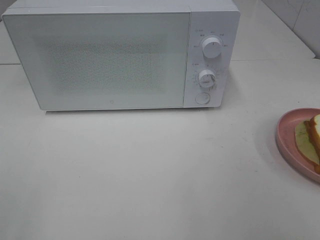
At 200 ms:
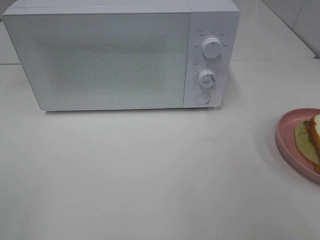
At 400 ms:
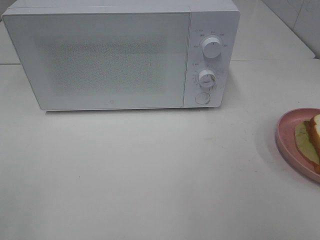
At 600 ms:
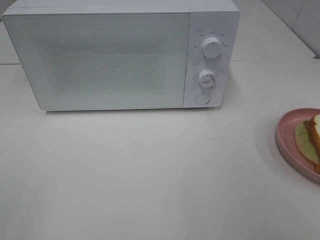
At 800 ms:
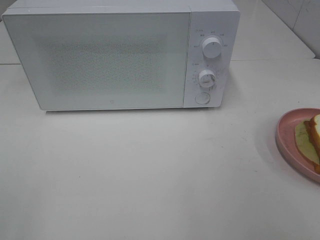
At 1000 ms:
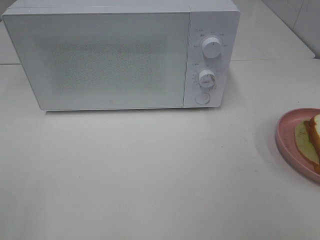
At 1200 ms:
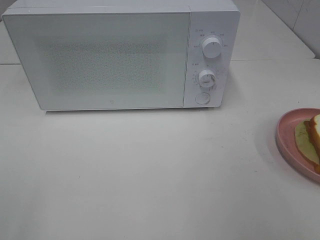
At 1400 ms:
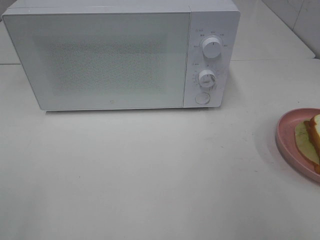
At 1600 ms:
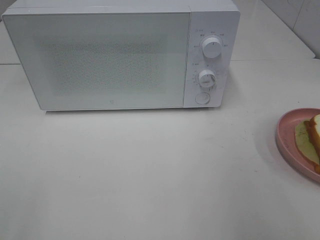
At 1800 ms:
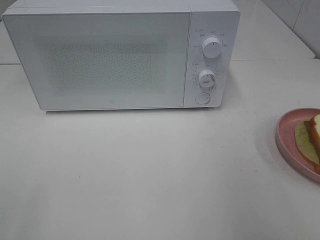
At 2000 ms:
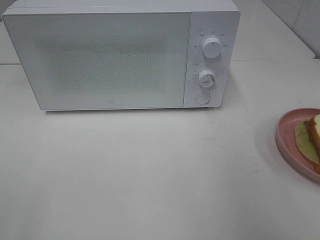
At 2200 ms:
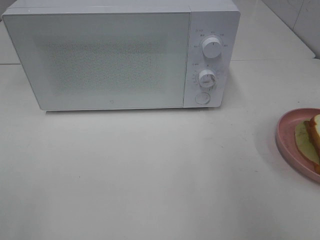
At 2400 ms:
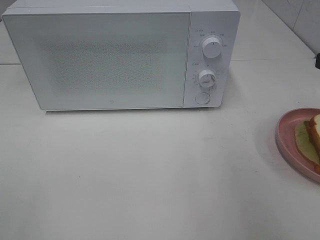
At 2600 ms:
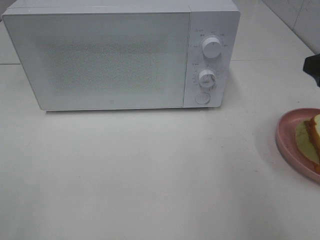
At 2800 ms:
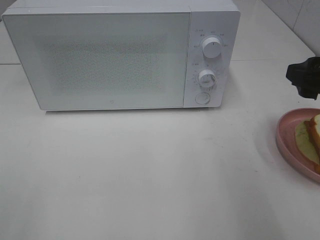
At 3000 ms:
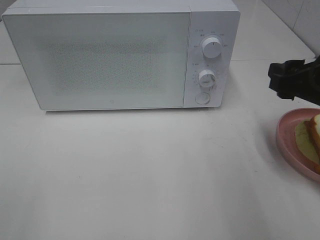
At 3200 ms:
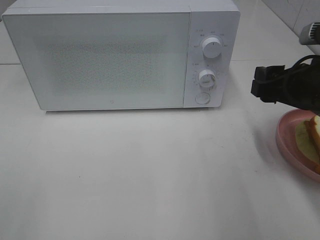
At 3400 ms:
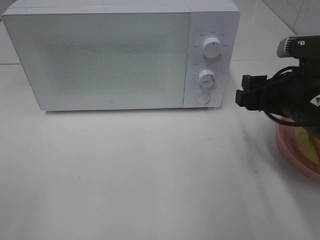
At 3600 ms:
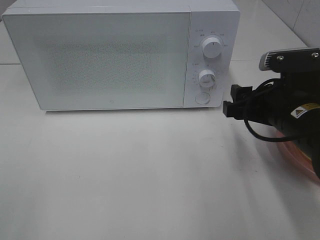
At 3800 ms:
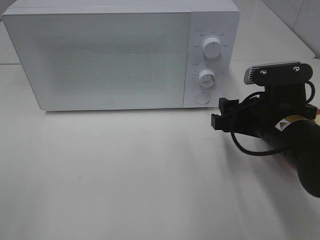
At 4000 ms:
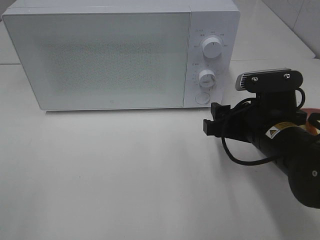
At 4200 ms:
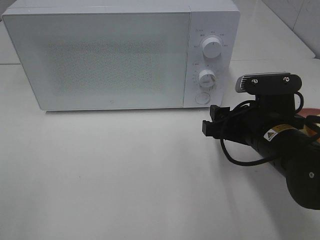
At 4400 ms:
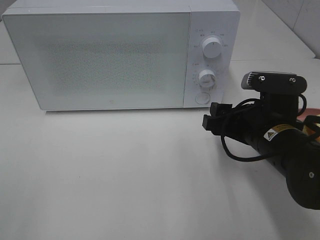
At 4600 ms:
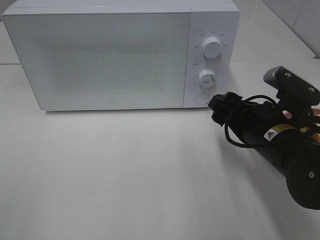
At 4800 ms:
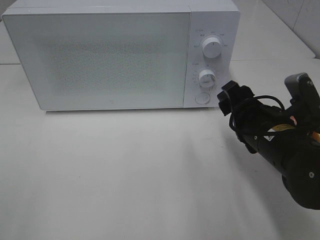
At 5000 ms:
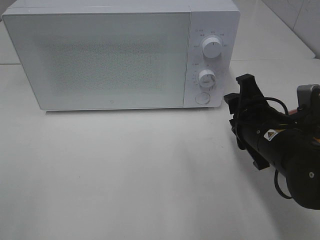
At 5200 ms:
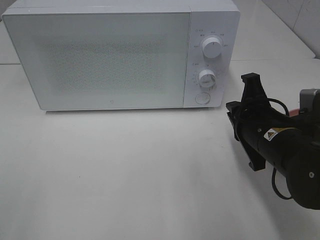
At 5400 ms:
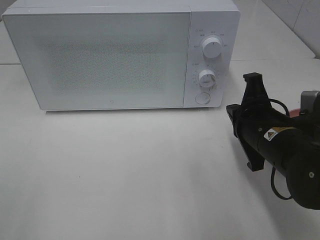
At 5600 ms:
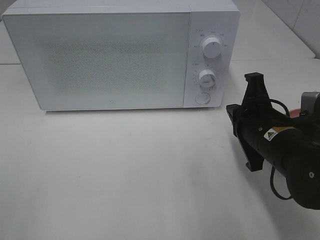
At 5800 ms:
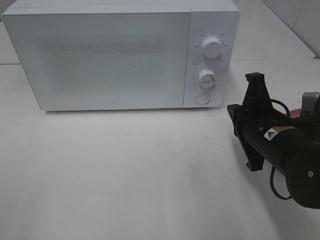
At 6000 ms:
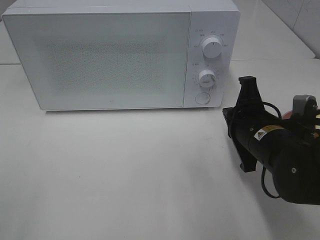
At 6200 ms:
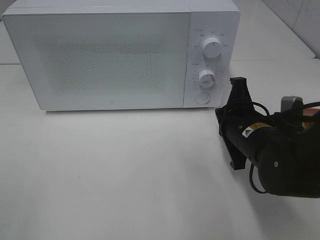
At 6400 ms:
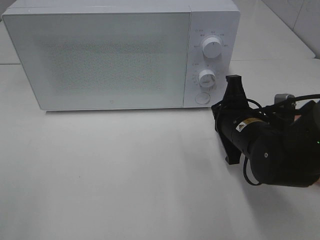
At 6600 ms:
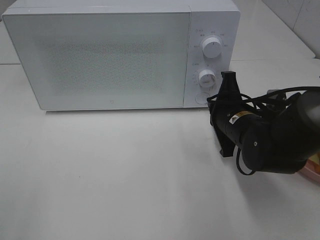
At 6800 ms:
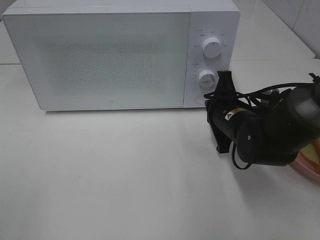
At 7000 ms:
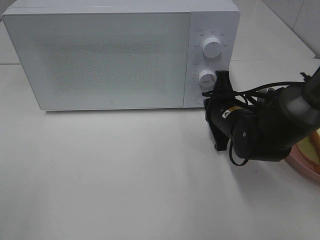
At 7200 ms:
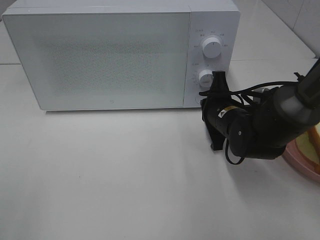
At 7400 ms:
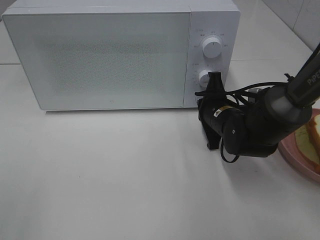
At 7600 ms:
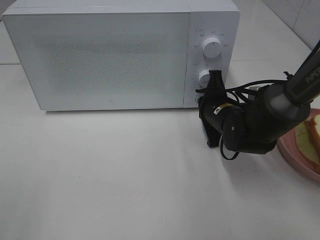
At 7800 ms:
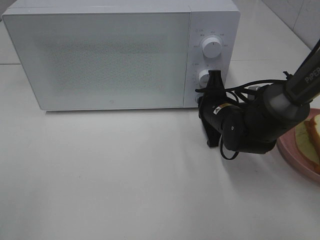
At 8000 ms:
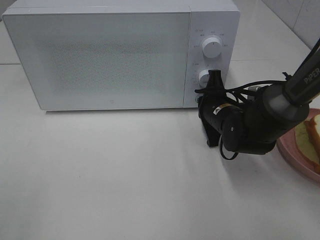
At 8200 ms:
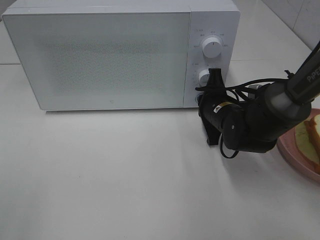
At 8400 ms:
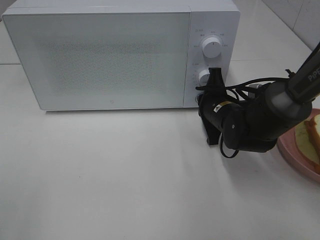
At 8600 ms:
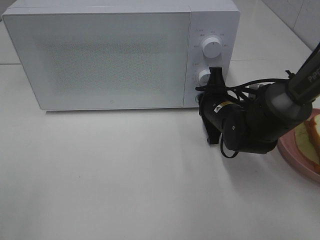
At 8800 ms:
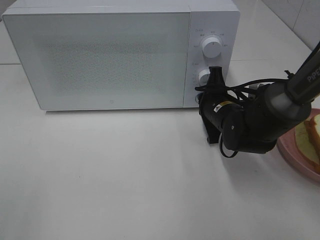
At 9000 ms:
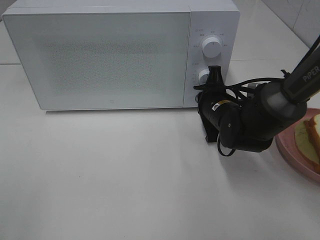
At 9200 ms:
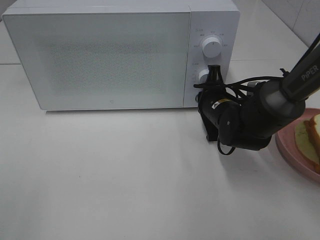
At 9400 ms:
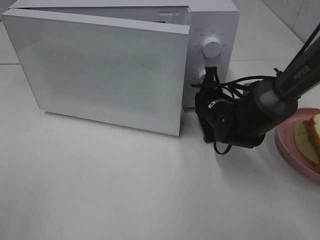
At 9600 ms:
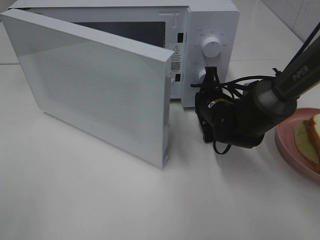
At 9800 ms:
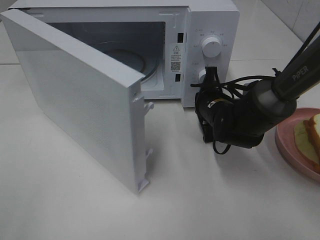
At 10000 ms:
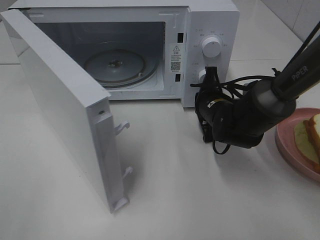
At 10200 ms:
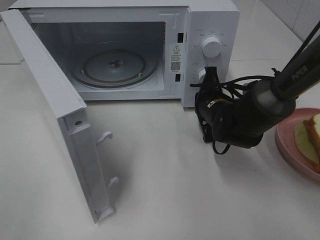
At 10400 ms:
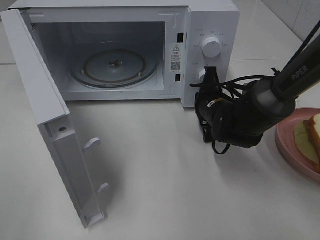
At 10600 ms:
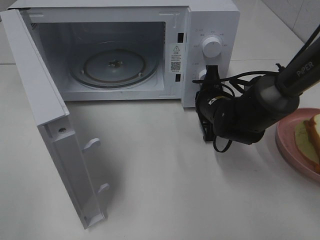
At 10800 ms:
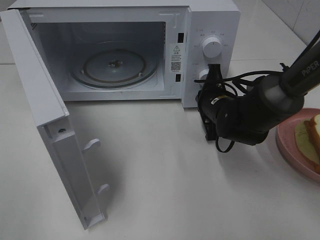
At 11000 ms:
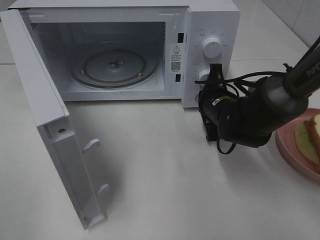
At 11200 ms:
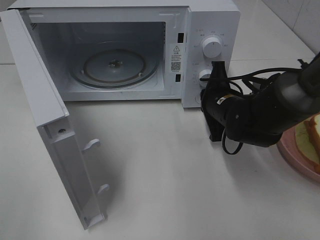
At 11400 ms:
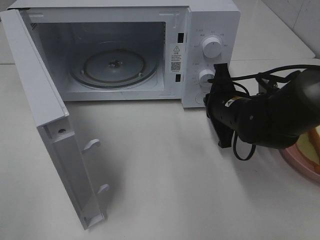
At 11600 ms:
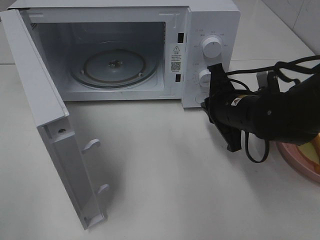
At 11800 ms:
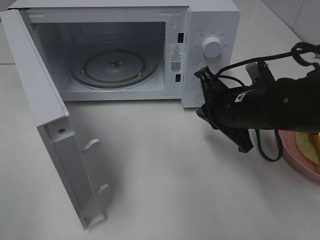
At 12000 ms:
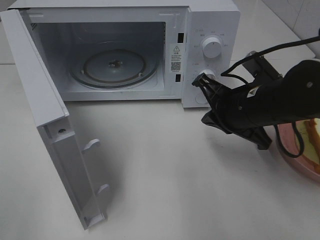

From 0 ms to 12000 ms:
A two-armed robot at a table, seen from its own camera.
Task of the whole recording: Heat Sandwich.
Step, from 0 ms to 11200 ms: Right hand: press the switch.
From 1600 ms to 3000 ms: The right gripper is displaced forward and downward by roughly 15 cm.
From 3000 ms to 4400 ms: The right gripper shifts approximately 10 cm downward and to the left.
From 4400 ms to 6000 ms: The right gripper closes up.
From 6000 ms to 7600 ms: The right gripper goes some 10 cm forward.
From 7600 ms to 9000 ms: The two grippers keep their place.
From 10400 ms to 12000 ms: The right gripper moves backward and upward, roughly 10 cm.

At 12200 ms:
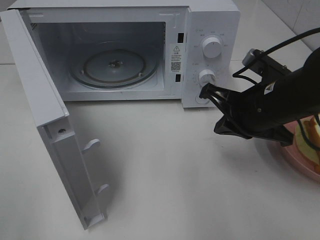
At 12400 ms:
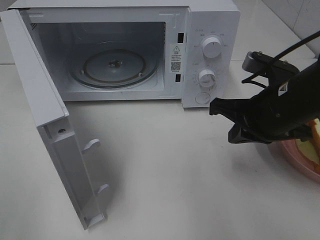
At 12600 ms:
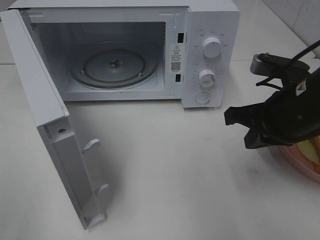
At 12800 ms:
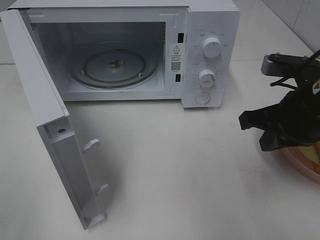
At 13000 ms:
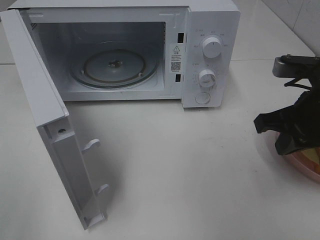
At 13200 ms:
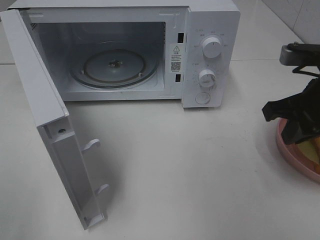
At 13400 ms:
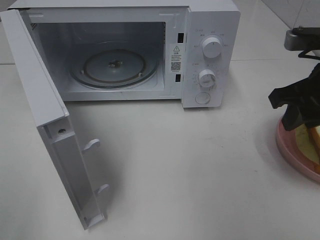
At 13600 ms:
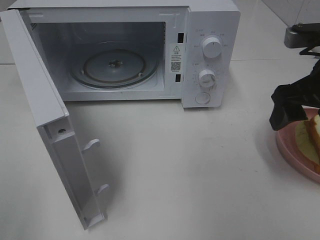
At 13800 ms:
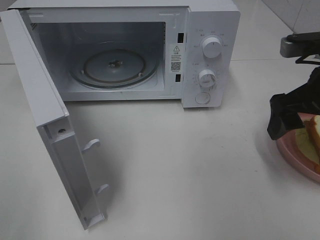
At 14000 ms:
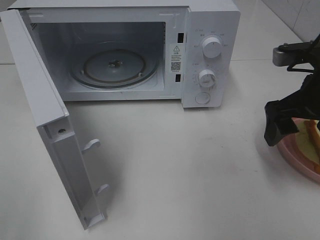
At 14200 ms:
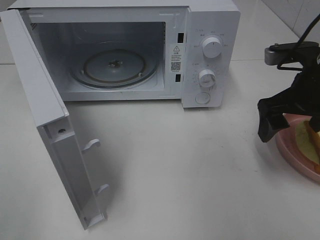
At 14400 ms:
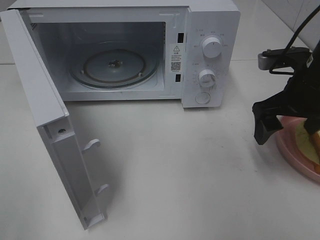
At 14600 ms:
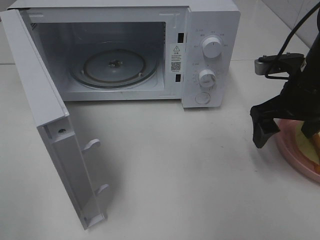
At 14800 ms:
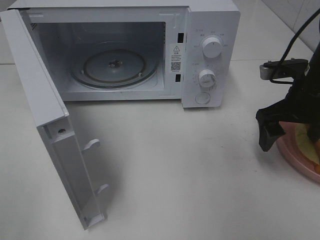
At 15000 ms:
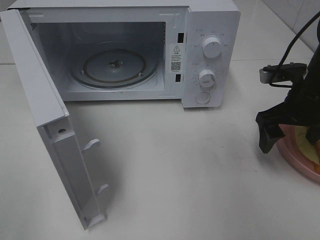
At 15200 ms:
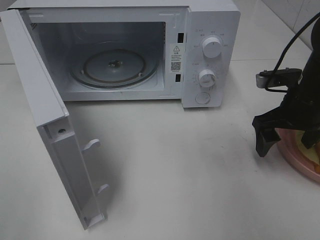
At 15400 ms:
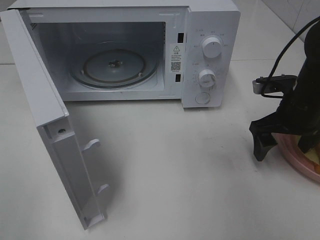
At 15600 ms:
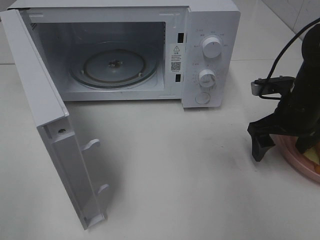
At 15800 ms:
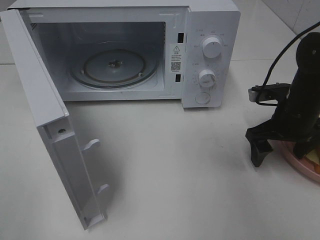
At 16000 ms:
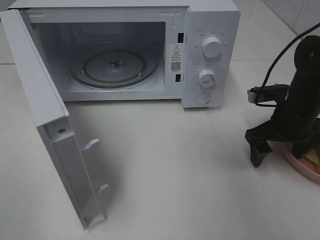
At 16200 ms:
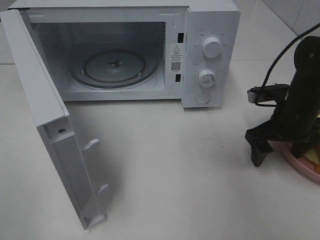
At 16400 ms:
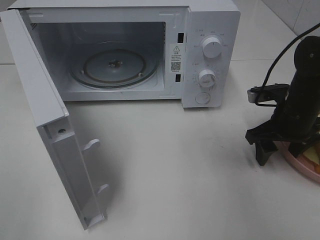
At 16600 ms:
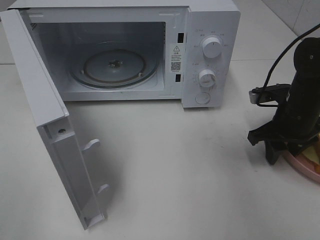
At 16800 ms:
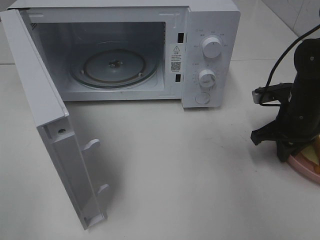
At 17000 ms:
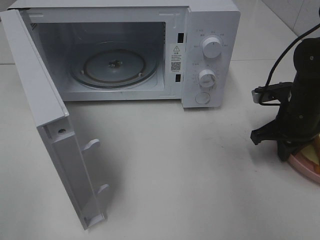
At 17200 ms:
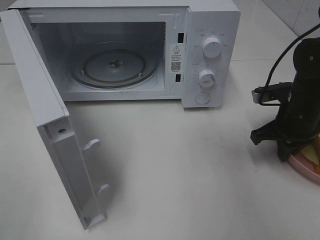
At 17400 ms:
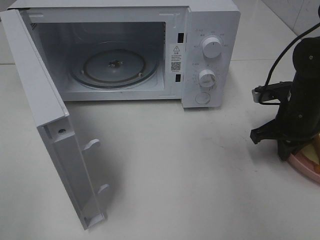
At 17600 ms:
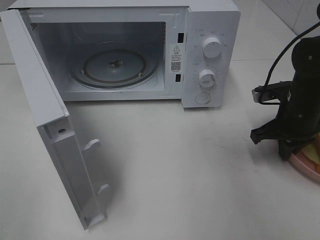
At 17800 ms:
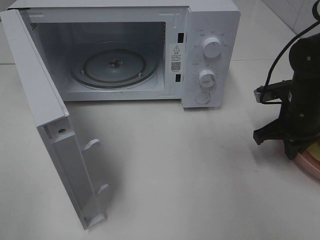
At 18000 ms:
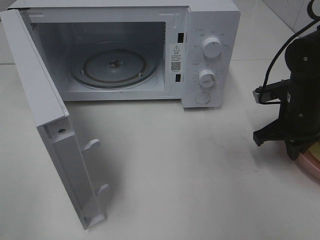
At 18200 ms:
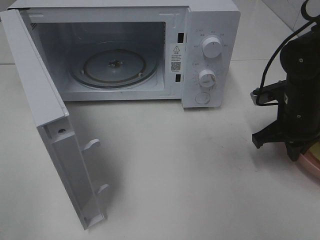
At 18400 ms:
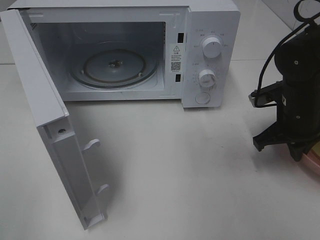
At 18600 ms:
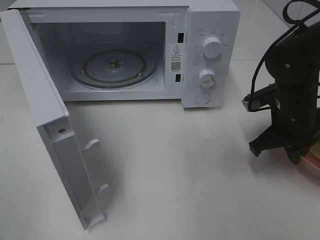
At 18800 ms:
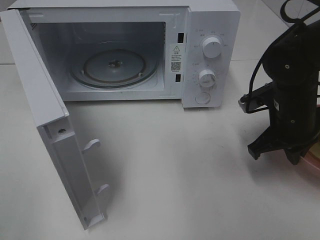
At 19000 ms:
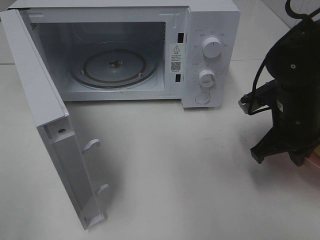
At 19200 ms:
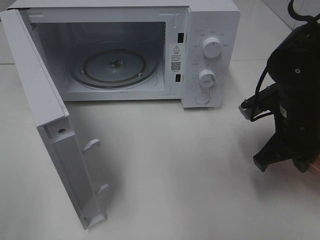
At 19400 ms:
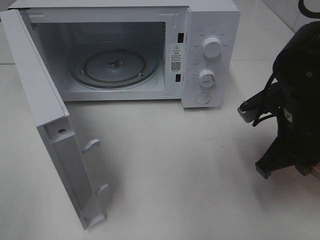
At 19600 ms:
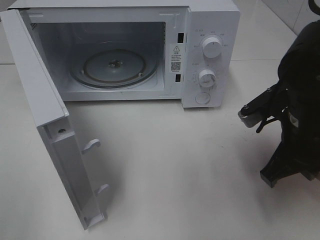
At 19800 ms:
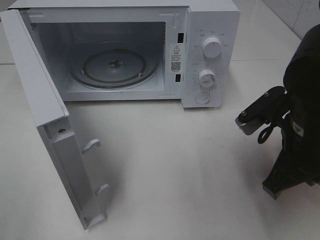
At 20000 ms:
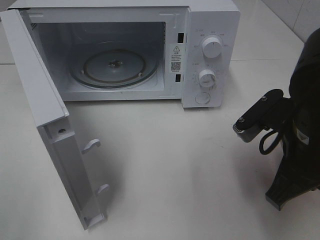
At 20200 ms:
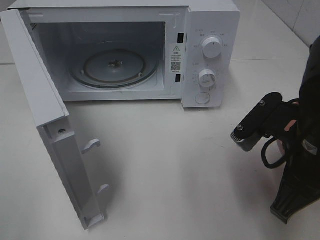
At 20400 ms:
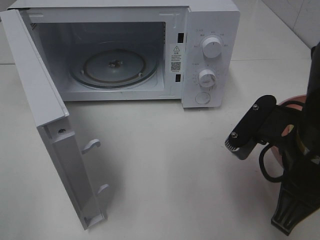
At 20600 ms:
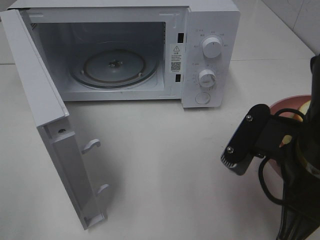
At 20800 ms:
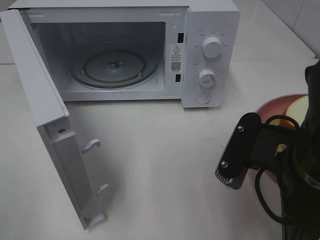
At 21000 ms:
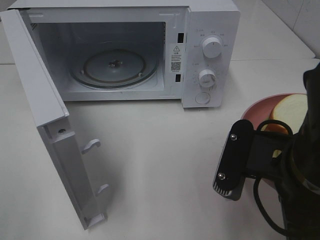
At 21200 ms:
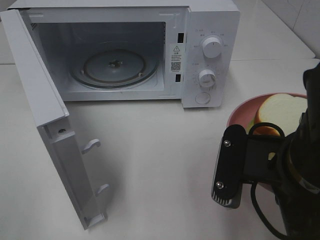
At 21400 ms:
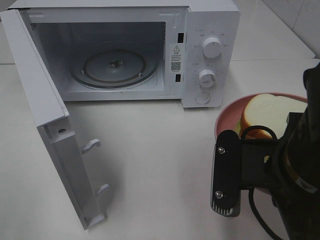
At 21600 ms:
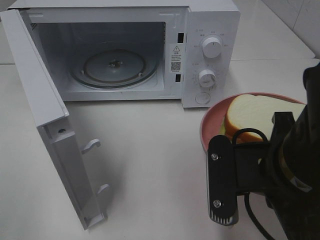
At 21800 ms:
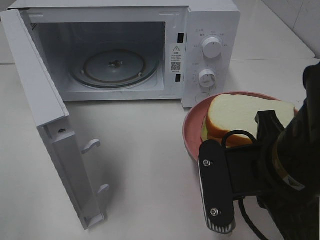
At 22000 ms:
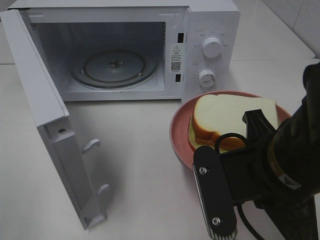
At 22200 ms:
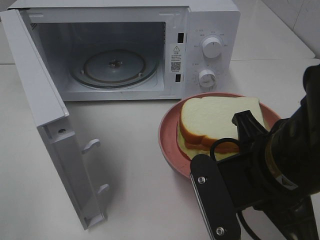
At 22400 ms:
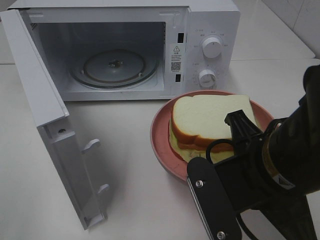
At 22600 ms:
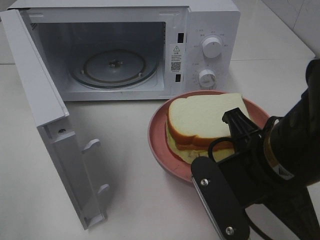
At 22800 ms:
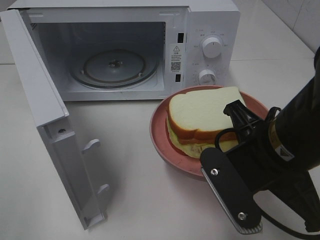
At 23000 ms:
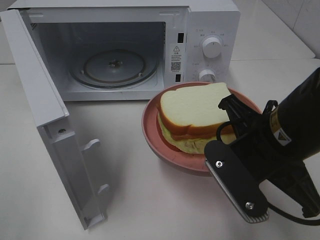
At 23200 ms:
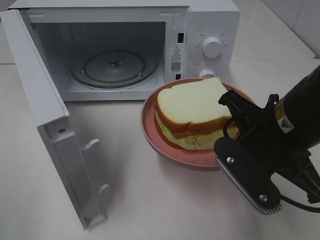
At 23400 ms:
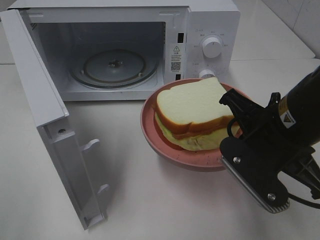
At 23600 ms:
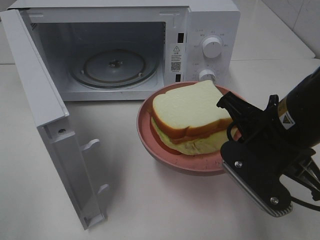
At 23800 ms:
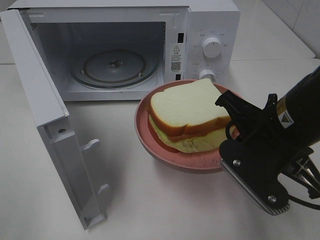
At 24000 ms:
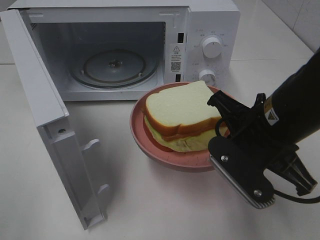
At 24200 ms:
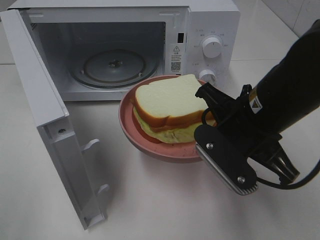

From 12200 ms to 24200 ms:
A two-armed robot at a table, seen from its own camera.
Task of the whole recording: Heat Sandwich.
Step, from 12200 ms to 17200 ms: Right hand: grab the plate with the sandwich.
From 12200 ms to 13800 ms: The right gripper moves to the right and upward, some 10 cm, and opens its fingers.
From 13800 ms to 15200 ms: The right gripper shifts approximately 10 cm downward and forward.
From 15200 ms to 16600 ms: The right gripper closes its fingers.
From 16600 ms to 18200 ms: The right gripper closes.
From 18200 ms to 19800 ms: The right gripper travels backward, to the left and upward by about 15 cm.
From 19800 ms to 21200 ms: The right gripper heads backward, covering about 5 cm.
From 22600 ms to 24200 ms: The right gripper goes roughly 5 cm forward.
